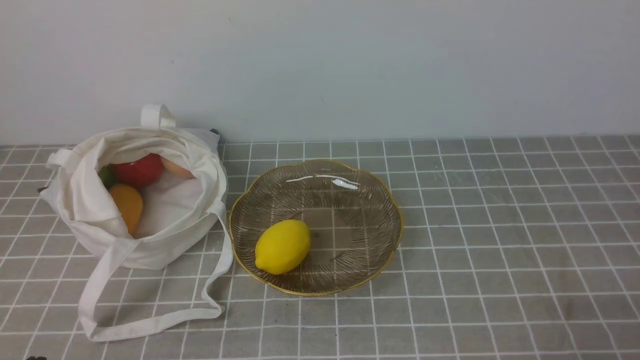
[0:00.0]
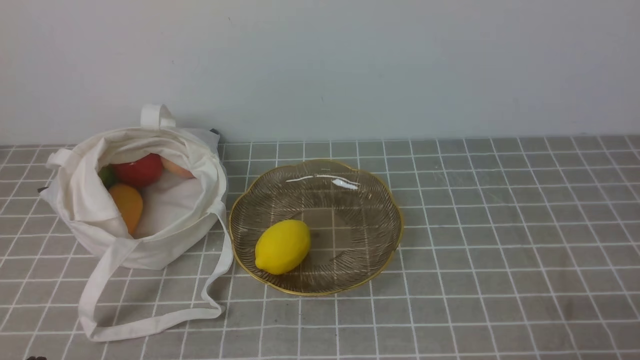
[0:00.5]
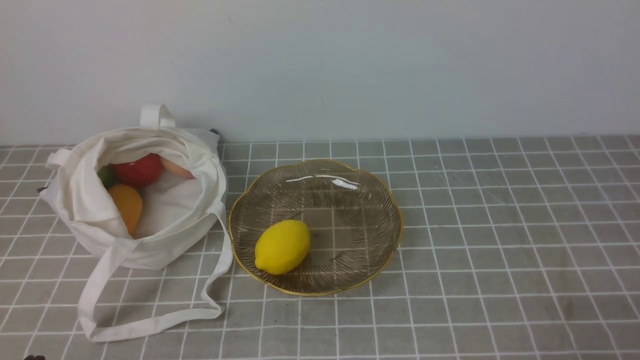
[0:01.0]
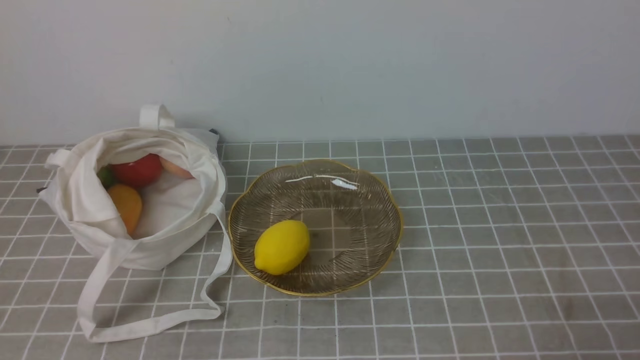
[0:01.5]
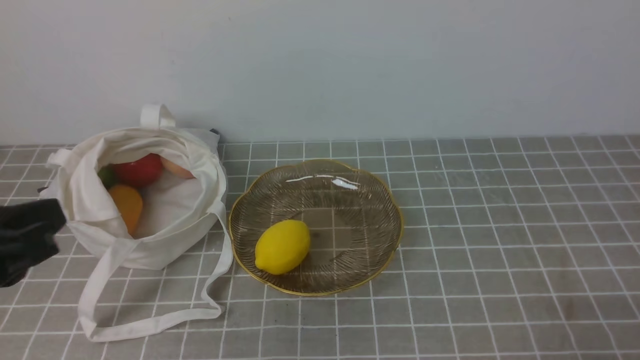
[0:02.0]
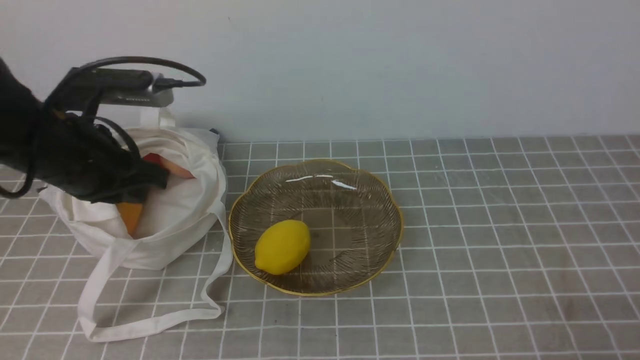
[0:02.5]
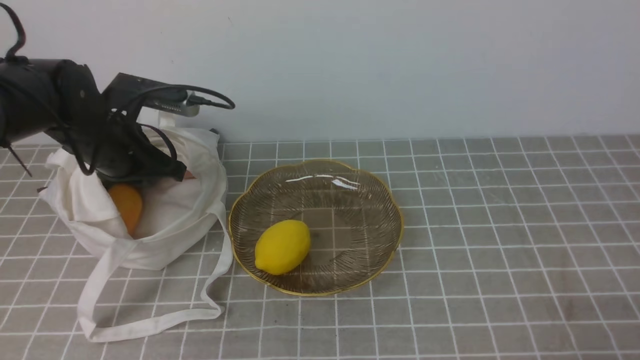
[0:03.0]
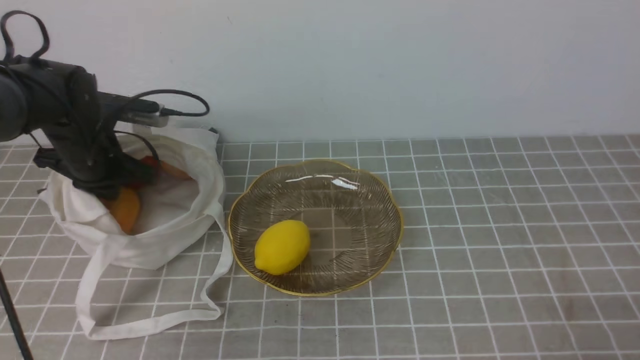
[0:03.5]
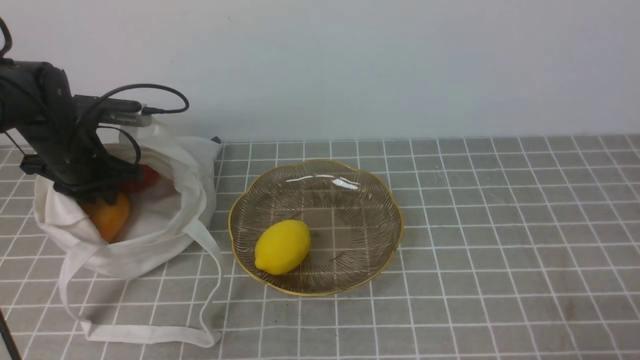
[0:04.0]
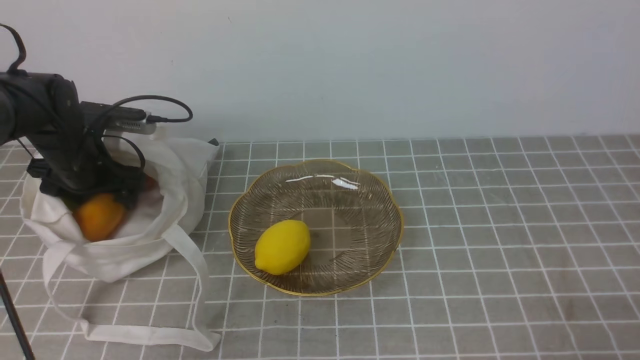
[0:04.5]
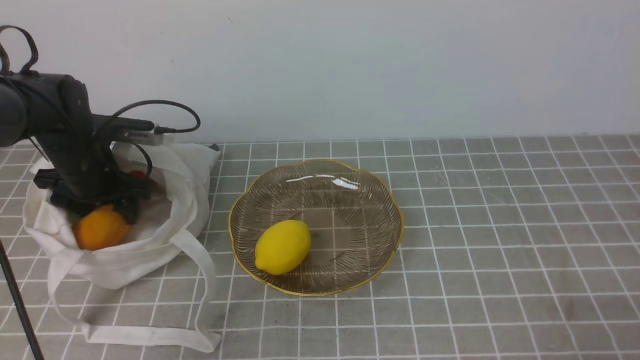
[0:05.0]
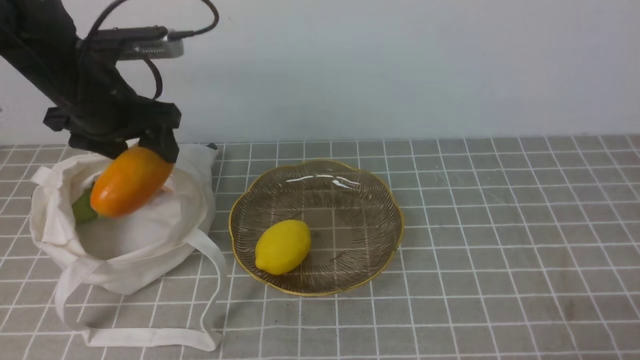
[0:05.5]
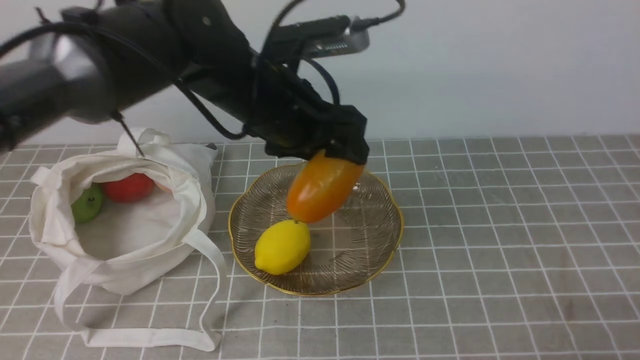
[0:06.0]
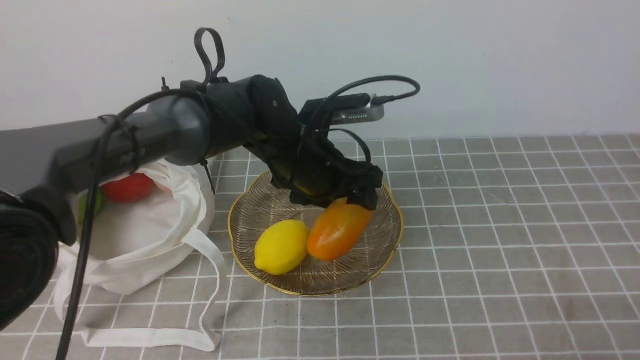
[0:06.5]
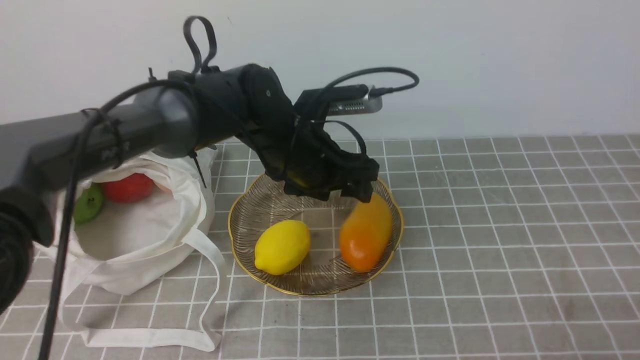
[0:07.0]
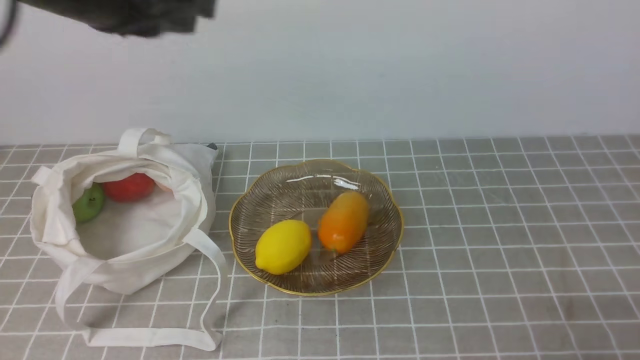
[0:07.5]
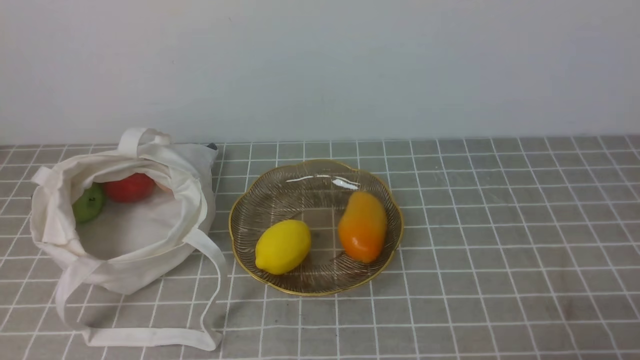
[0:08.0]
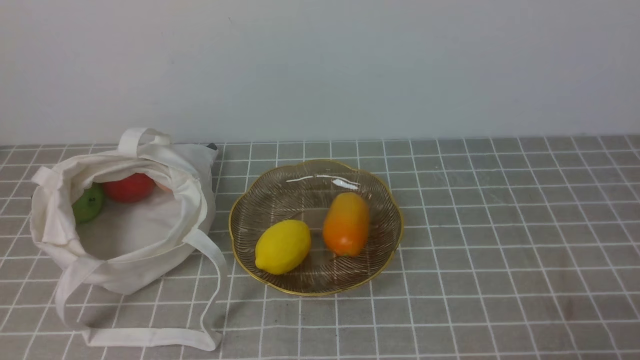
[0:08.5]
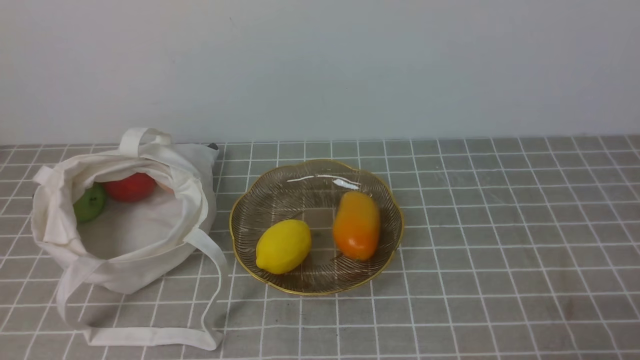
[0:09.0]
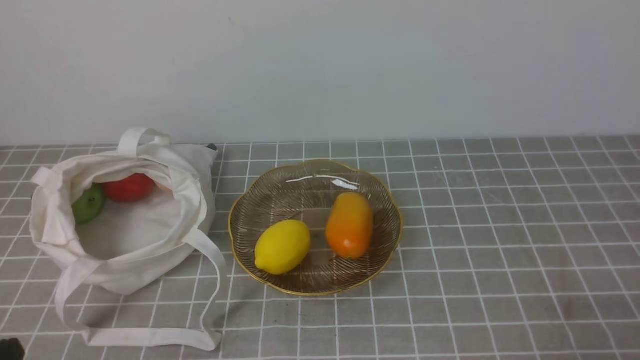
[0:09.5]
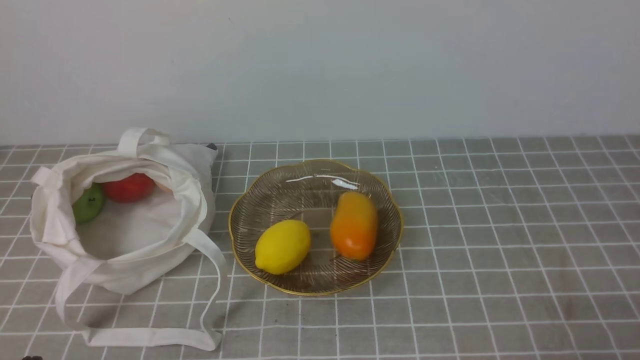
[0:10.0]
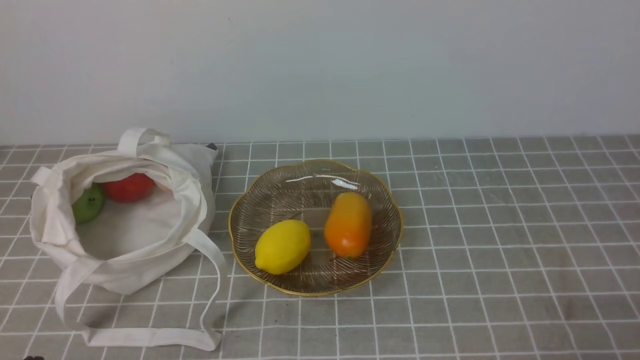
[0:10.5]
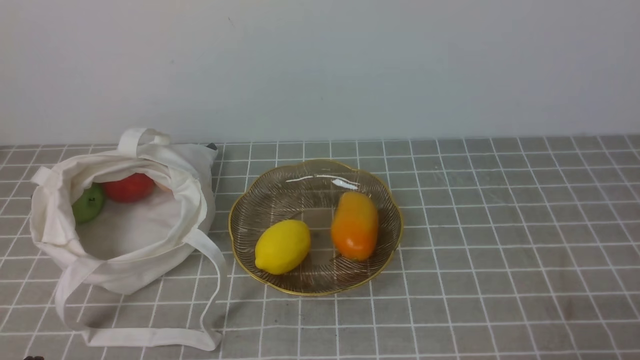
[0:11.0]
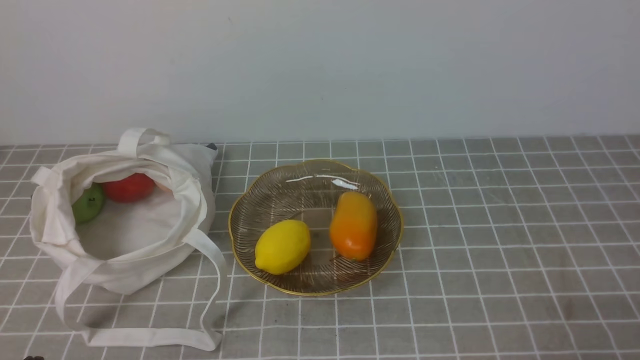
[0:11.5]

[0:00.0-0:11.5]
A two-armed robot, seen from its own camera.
Step, 0:00.0 to 0:05.0: use the left arm to grab a mango from the bag.
Step, 0:05.5 to 0:06.5: use the left arm to put the mango into the empty plate on the right.
0:02.0 to 0:04.0: The left gripper is displaced forward and downward by about 35 cm.
0:04.0 to 0:06.0: The left gripper heads to the right and upward, covering some 25 cm, and opens its fingers.
0:06.0 to 0:07.5: The left gripper shifts about 15 cm upward, backward and to the left, and closes up.
0:07.5 to 0:09.5: The left gripper shifts approximately 35 cm backward, downward and to the left. Meanwhile the right gripper closes its fingers.

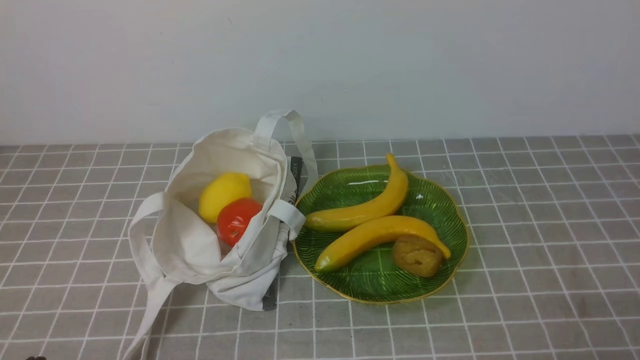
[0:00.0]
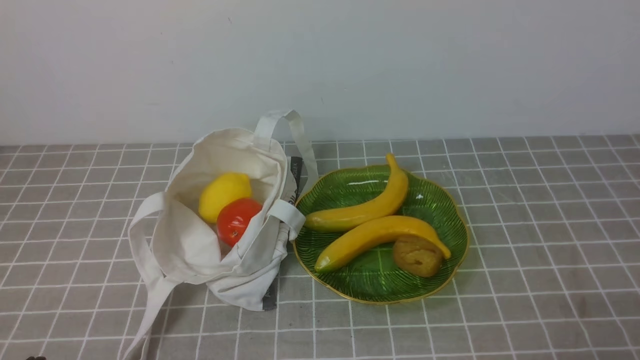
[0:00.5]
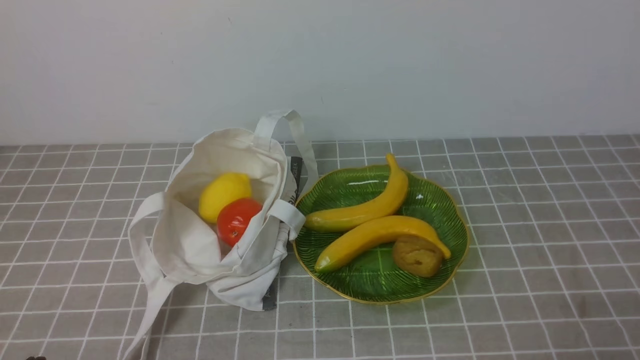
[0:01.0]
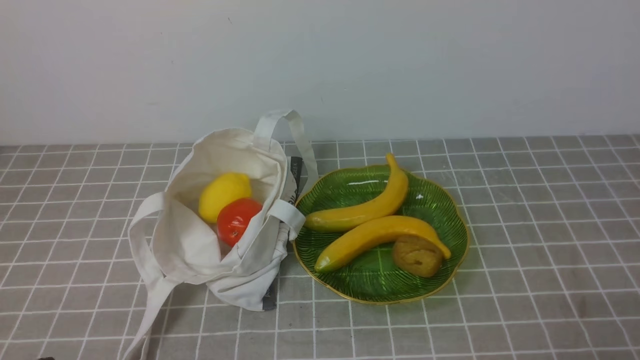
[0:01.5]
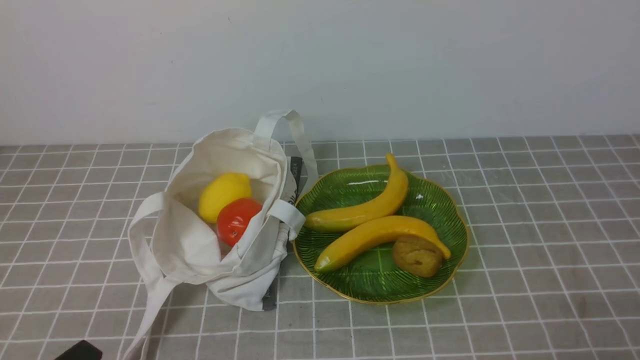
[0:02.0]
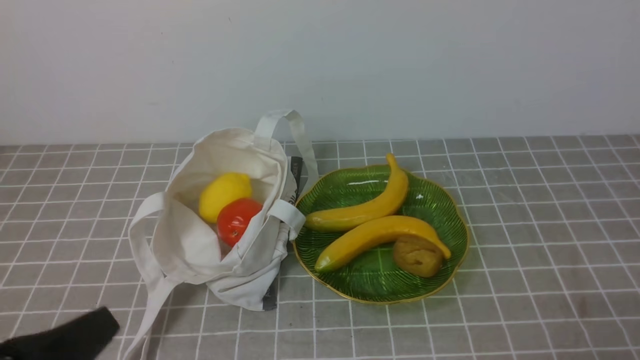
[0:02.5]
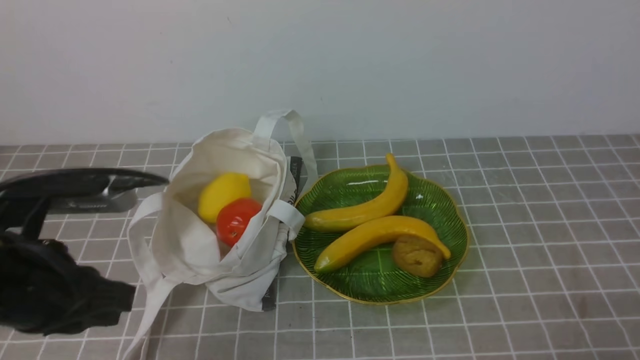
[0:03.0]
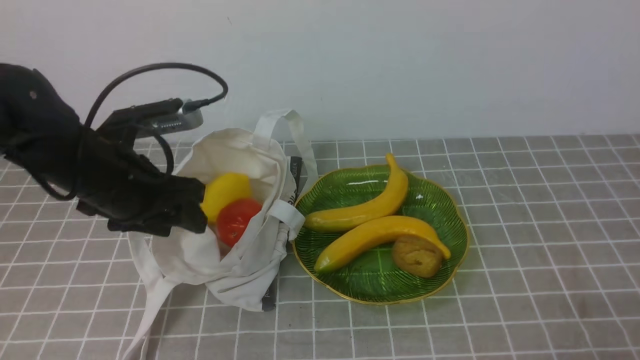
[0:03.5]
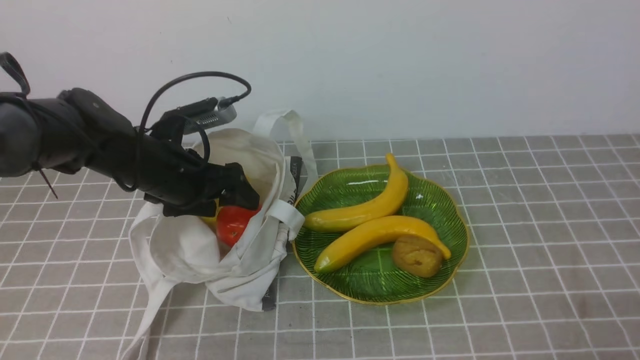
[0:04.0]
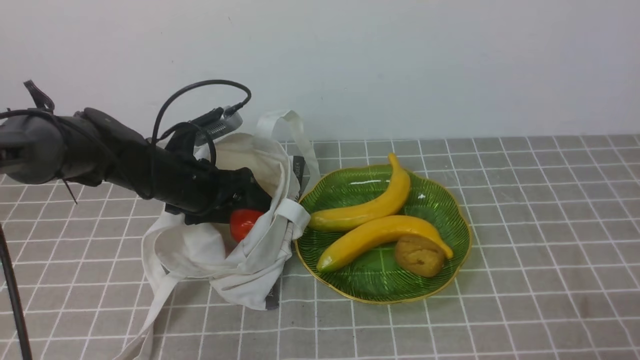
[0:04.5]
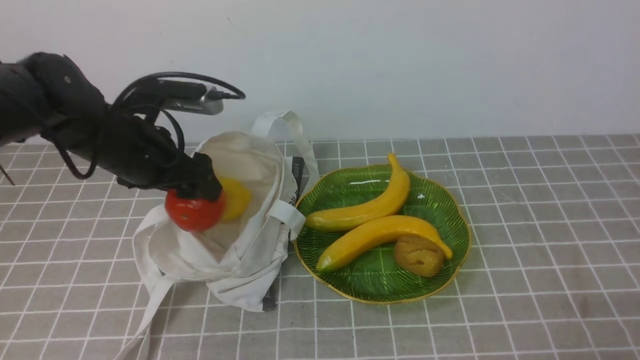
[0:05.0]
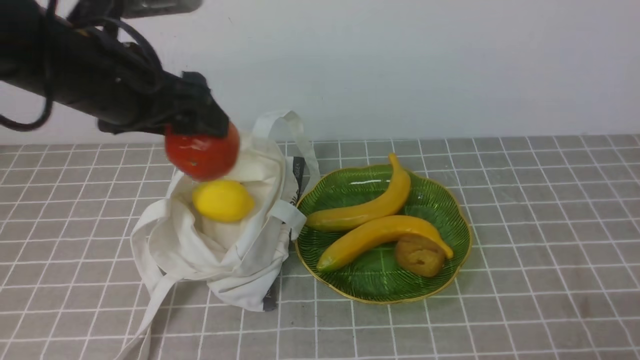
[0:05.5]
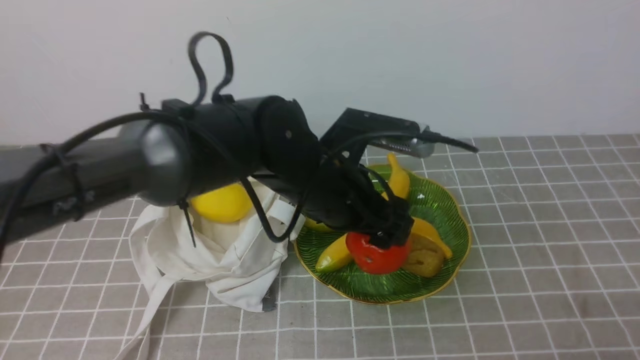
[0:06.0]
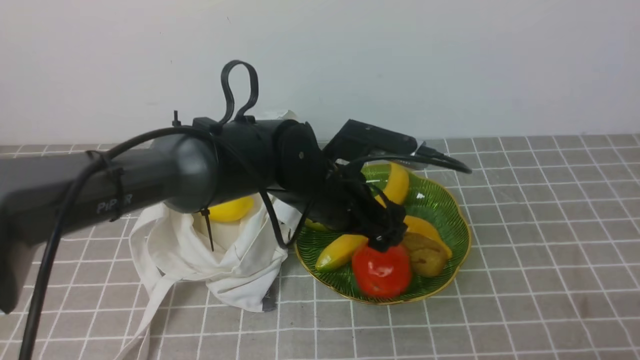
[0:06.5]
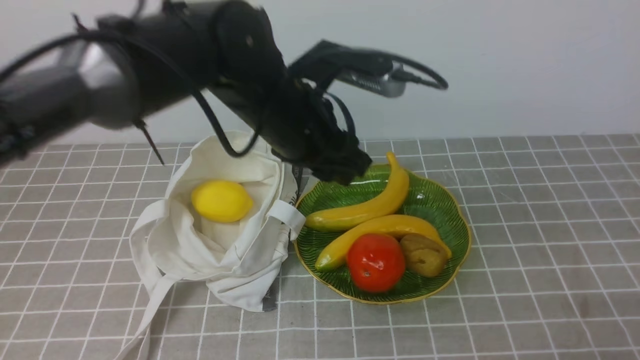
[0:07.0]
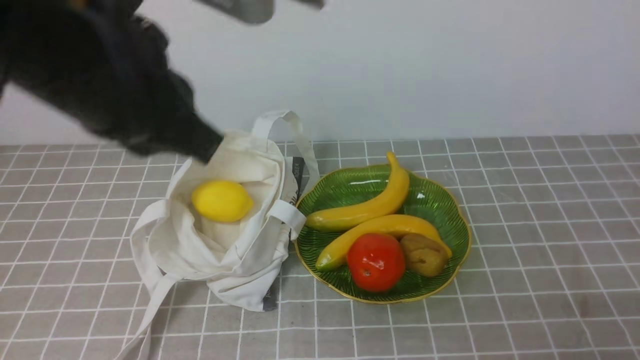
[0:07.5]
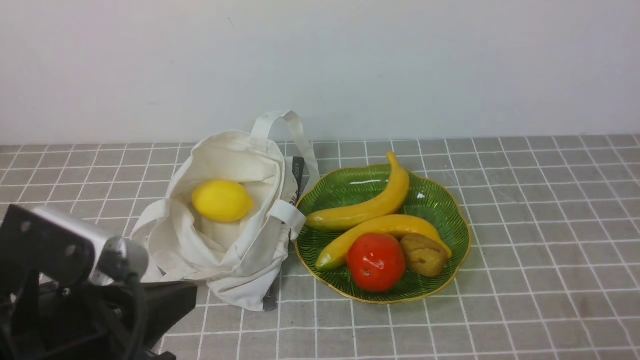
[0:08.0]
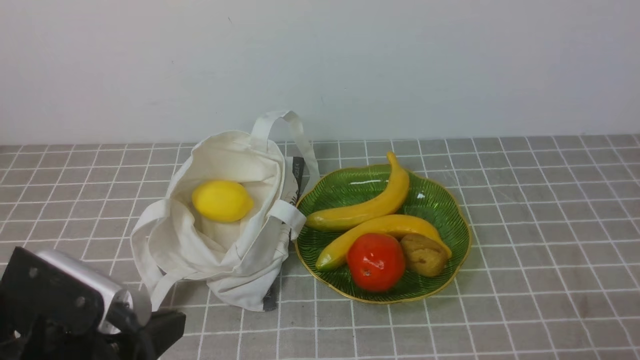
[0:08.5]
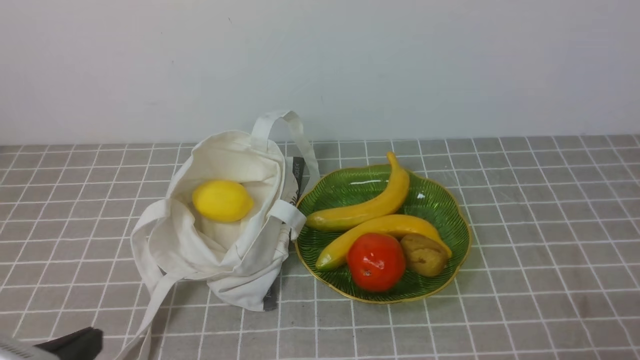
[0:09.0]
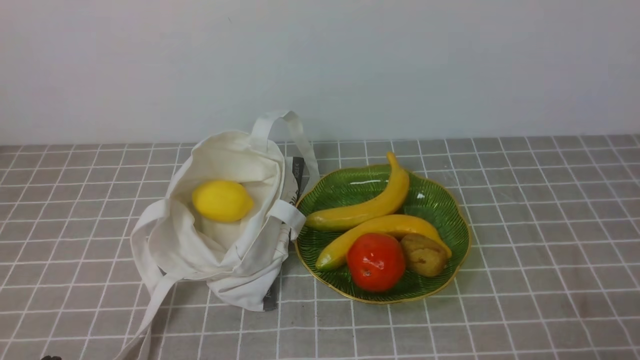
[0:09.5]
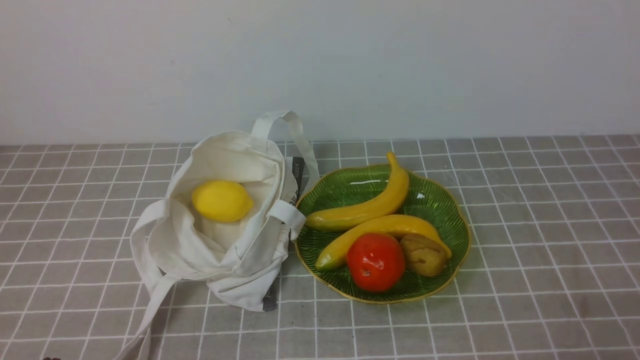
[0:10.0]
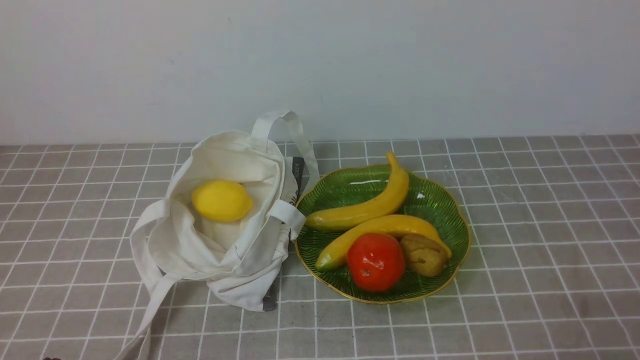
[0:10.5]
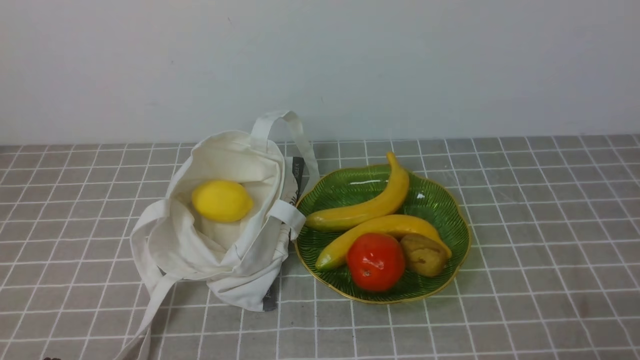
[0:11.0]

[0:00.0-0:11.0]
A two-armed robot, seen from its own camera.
Step, 0:00.0 to 0:04.5: use the left arm to grab an apple from the bag.
Step, 0:05.0 to 0:06.5: use the left arm to put the apple into the empty plate on the right.
0:02.0 to 0:03.5: The left gripper goes some 25 cm forward, and opens up.
0:03.5 to 0:05.5: The left gripper shifts some 10 cm upward.
0:05.5 to 0:07.5: The left gripper is displaced backward and upward by about 15 cm, and closes its fingers.
0:07.5 to 0:09.0: The left gripper is displaced downward, backward and to the left by about 25 cm.
0:09.0 to 0:11.0: The left gripper changes place by some 5 cm.
